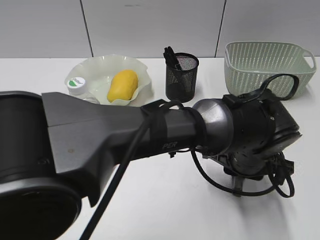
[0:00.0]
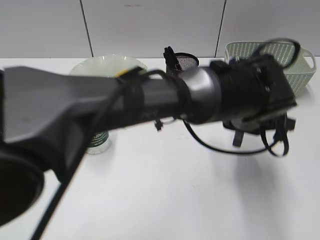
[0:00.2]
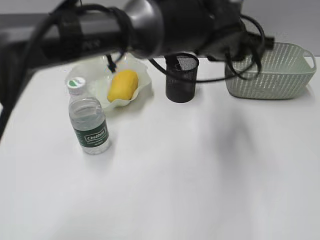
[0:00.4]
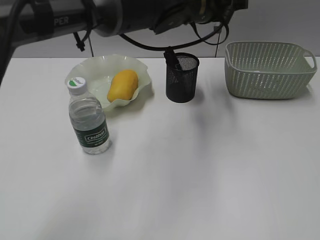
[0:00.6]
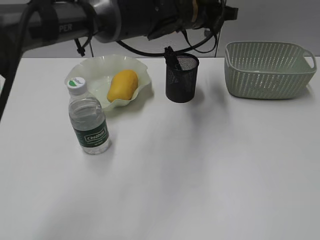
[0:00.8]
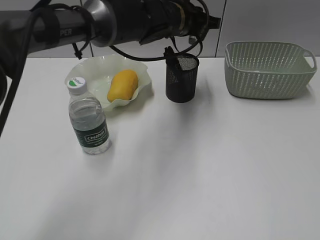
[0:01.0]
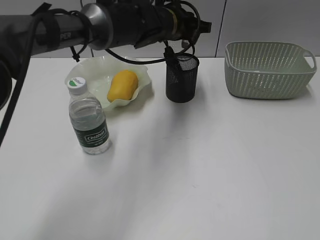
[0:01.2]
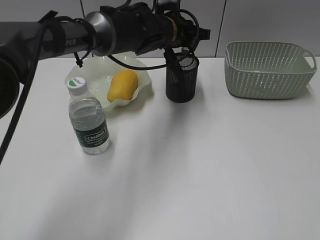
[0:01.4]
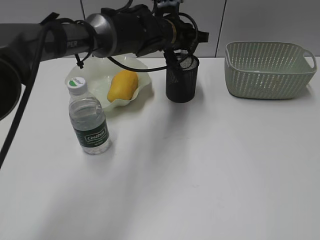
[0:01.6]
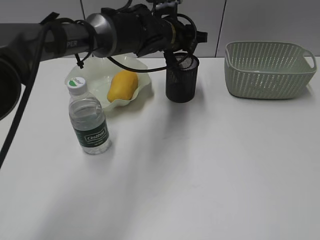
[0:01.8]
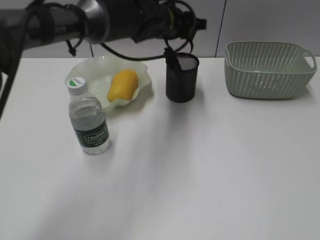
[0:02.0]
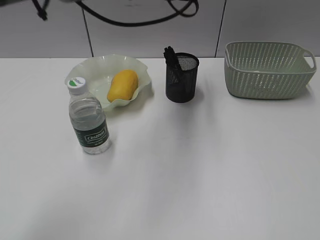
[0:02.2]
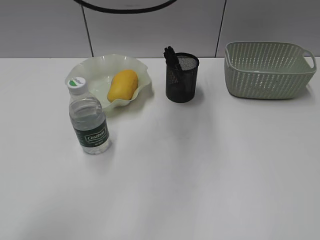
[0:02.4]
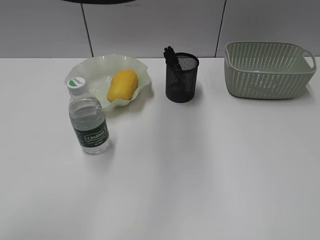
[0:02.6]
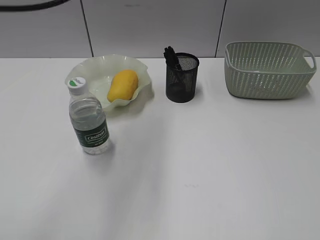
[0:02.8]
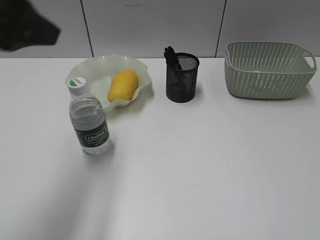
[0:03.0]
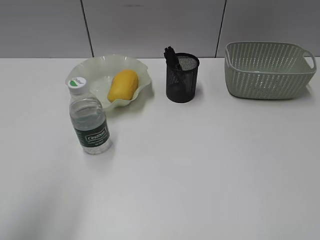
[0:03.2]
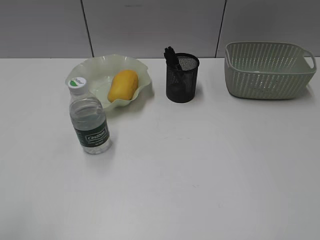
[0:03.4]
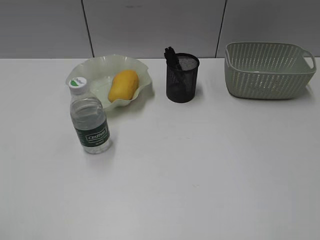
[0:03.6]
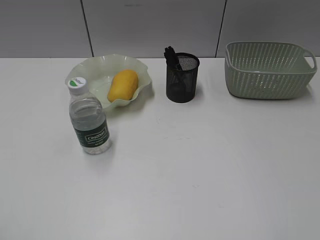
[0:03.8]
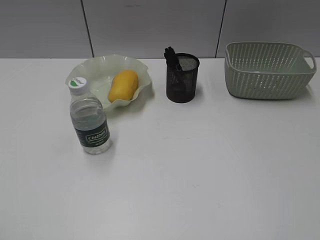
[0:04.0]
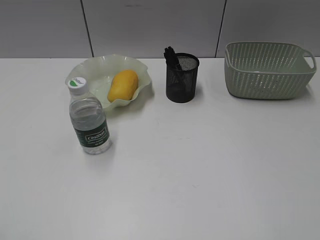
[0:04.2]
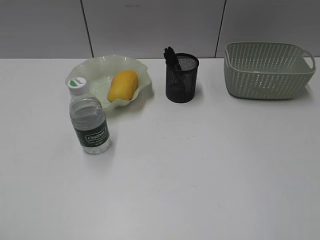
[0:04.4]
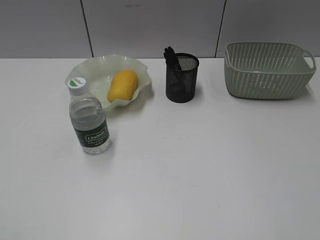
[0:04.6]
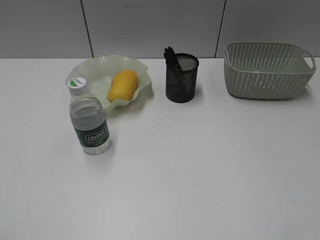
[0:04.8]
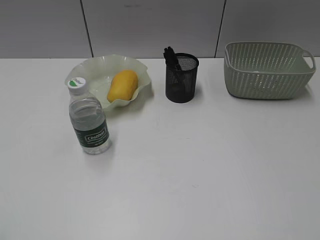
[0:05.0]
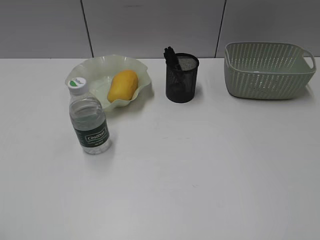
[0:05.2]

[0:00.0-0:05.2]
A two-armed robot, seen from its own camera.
Step, 0:00.2 to 0:01.8: Place the eraser in pen holder with left gripper.
0:00.0 to 0:01.8: The left gripper is displaced forward and to the left by approximately 25 cm, and opens its fingers.
0:01.8 to 0:03.4: The left gripper goes roughly 50 cm backward and to the left.
